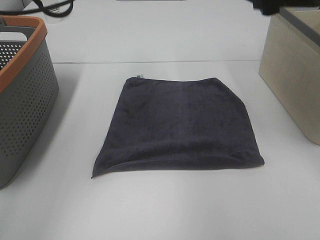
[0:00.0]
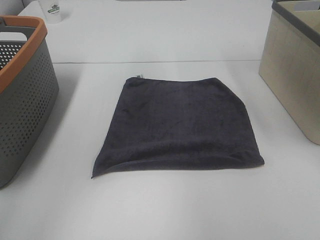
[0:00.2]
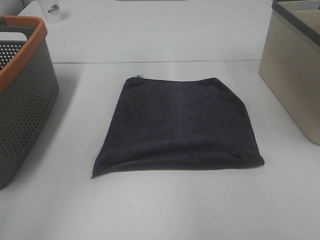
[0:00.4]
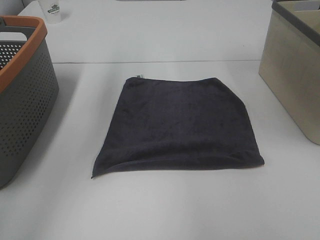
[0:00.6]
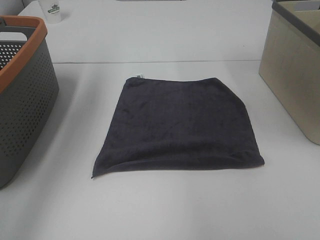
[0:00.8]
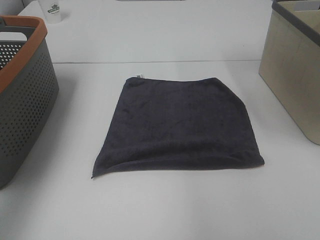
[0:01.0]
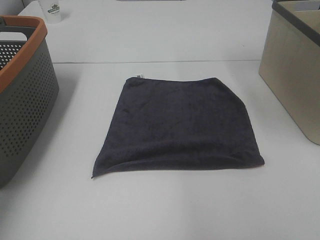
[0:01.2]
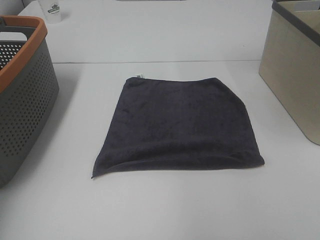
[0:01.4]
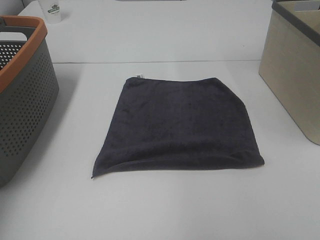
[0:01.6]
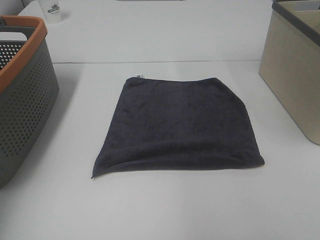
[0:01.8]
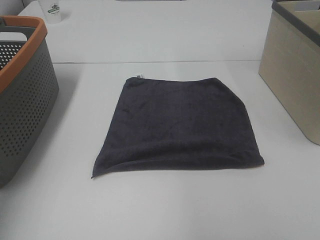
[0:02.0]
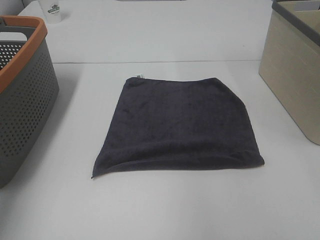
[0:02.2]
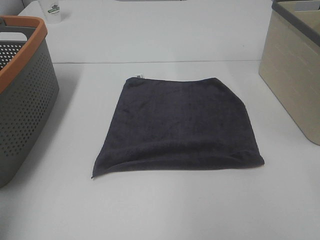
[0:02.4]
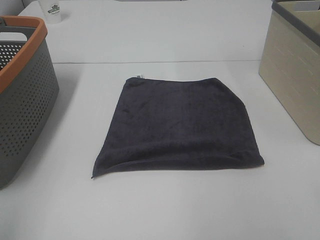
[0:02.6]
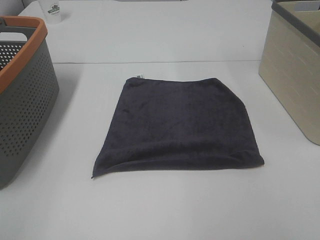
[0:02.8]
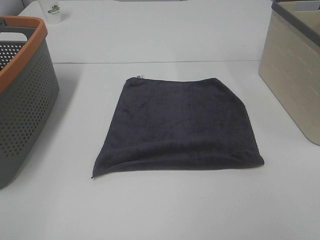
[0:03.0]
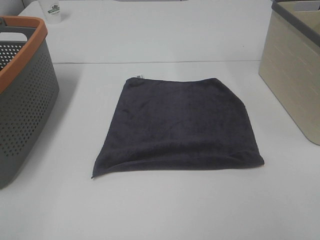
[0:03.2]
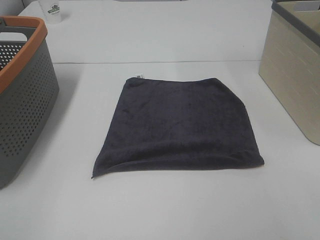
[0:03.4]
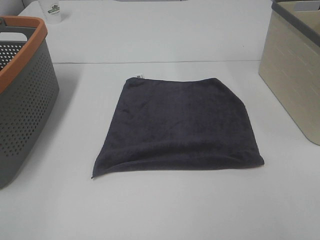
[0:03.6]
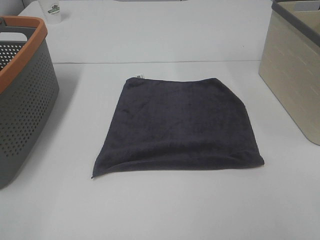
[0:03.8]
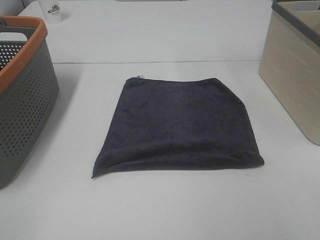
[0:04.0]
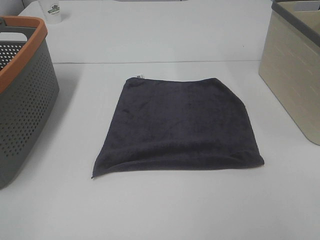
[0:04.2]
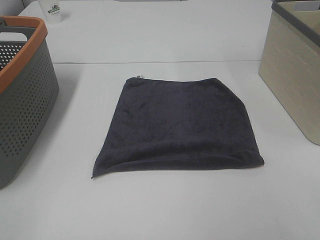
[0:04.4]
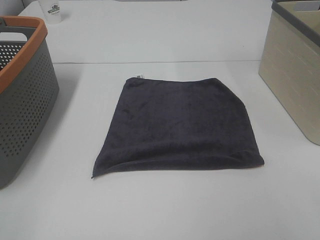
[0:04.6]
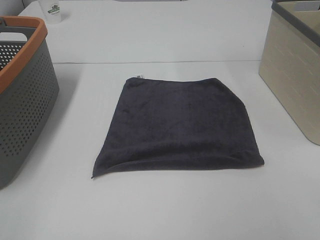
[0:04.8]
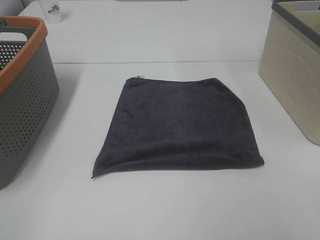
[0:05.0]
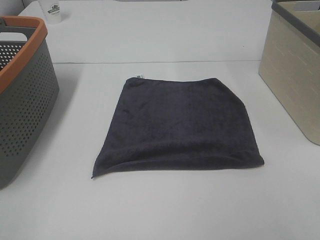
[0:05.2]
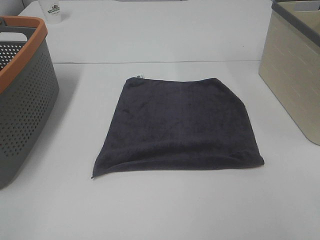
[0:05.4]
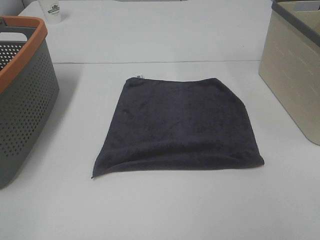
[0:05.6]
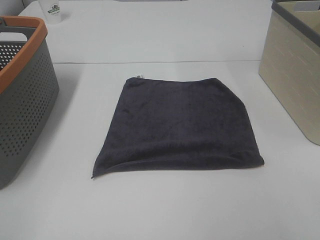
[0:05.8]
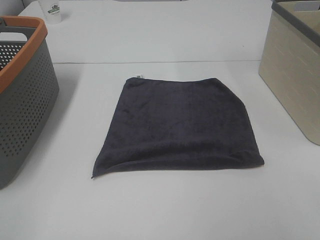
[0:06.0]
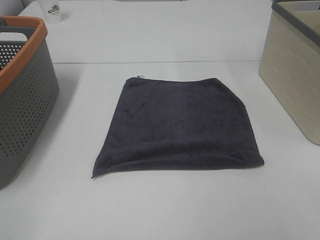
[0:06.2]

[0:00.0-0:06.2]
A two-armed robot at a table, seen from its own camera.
Task of the whole recording: Remove the towel and place it.
0:00.0 to 0:01.6: The right gripper goes some 10 cm upward. The left gripper heads to the left, covering roughly 25 cm.
0:01.6 to 0:03.2: The left gripper goes about 35 cm backward.
0:04.6 to 0:06.2: The two grippers keep their place.

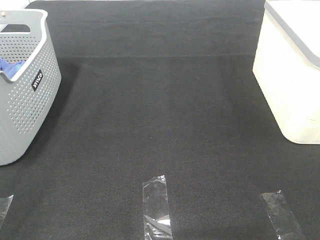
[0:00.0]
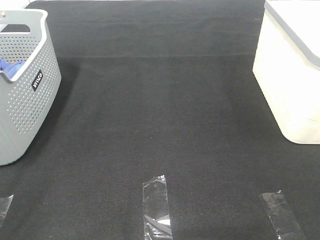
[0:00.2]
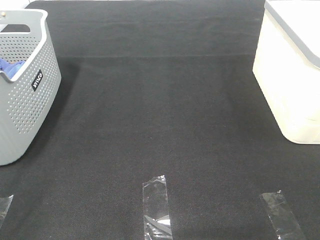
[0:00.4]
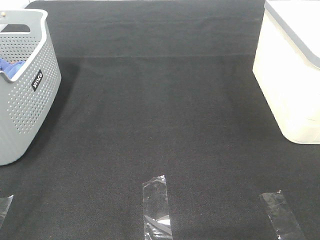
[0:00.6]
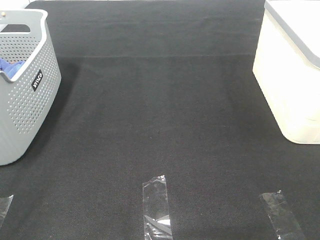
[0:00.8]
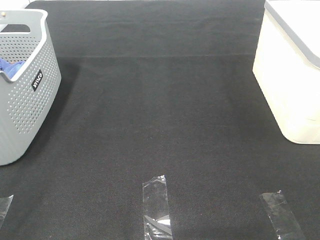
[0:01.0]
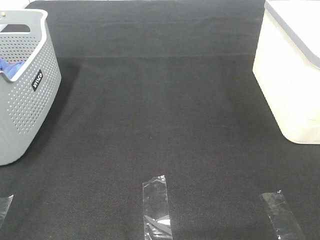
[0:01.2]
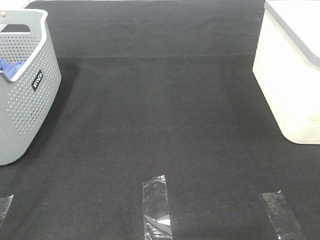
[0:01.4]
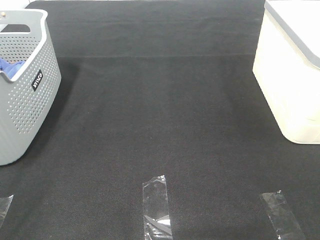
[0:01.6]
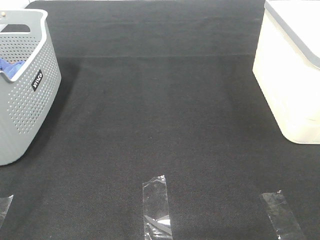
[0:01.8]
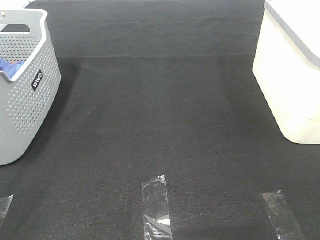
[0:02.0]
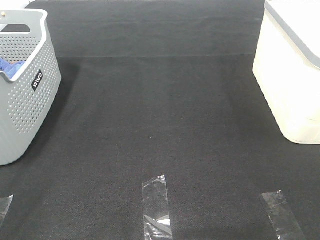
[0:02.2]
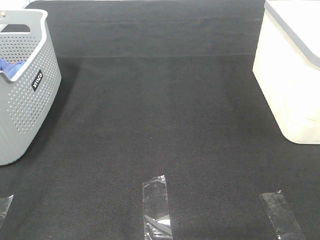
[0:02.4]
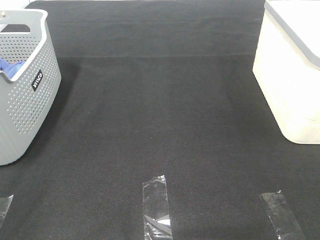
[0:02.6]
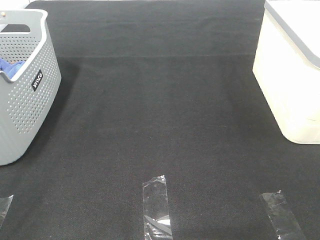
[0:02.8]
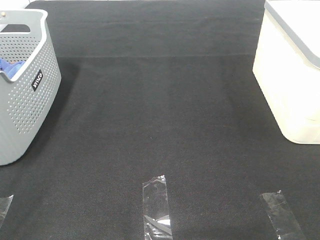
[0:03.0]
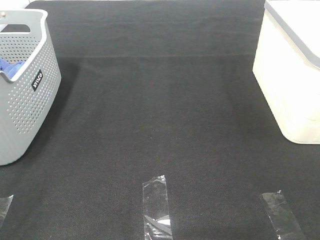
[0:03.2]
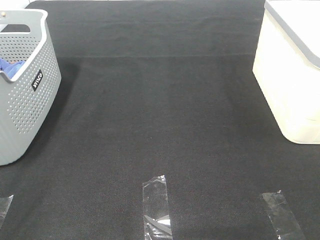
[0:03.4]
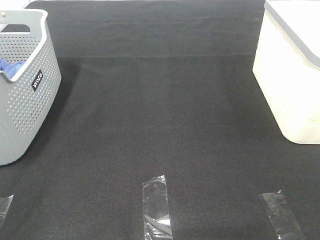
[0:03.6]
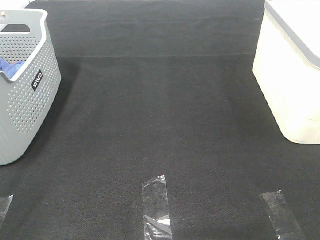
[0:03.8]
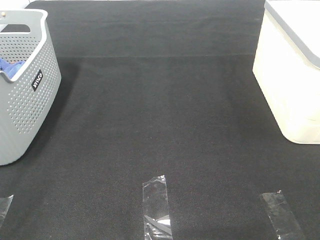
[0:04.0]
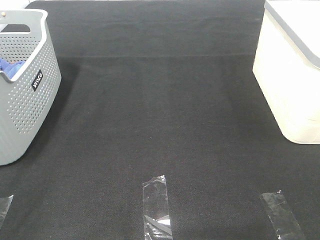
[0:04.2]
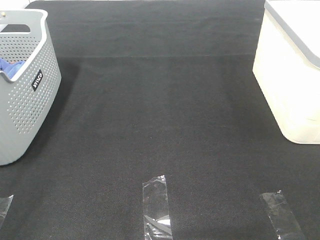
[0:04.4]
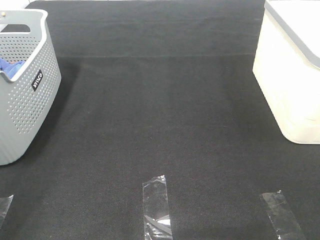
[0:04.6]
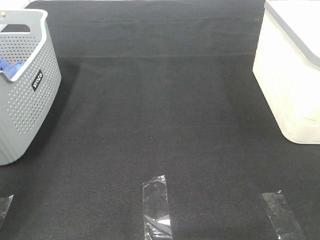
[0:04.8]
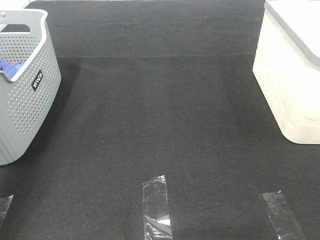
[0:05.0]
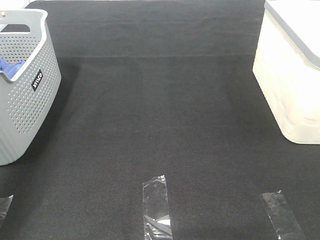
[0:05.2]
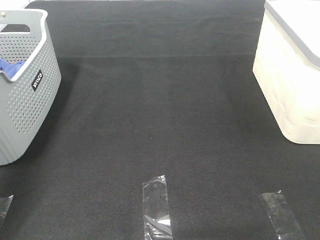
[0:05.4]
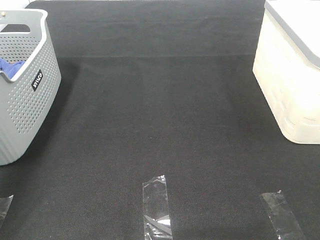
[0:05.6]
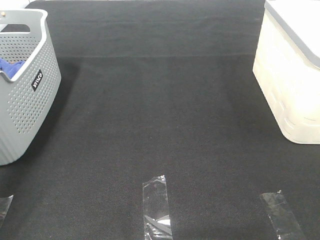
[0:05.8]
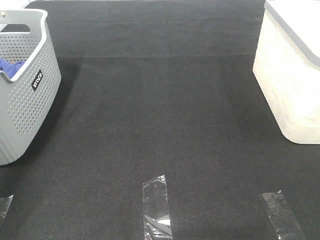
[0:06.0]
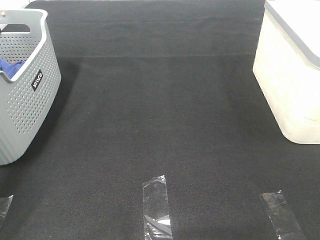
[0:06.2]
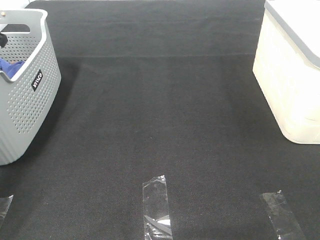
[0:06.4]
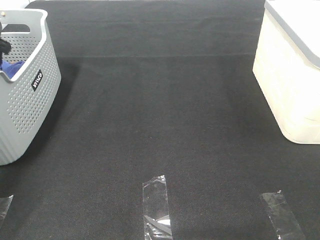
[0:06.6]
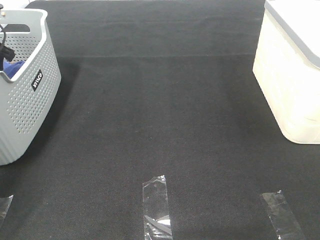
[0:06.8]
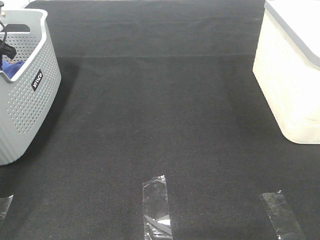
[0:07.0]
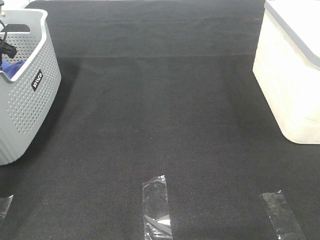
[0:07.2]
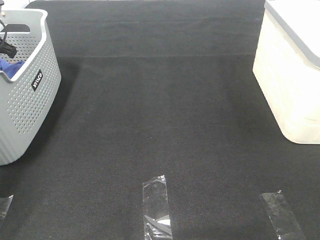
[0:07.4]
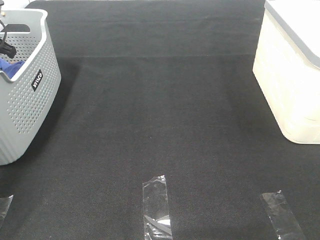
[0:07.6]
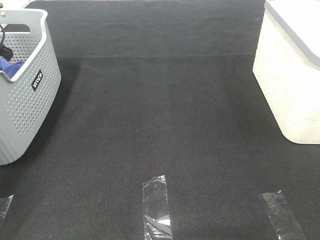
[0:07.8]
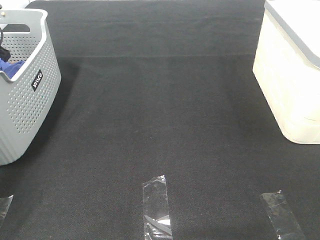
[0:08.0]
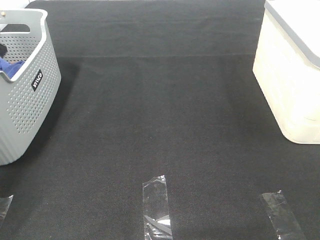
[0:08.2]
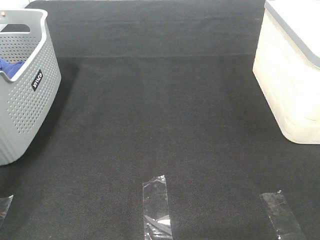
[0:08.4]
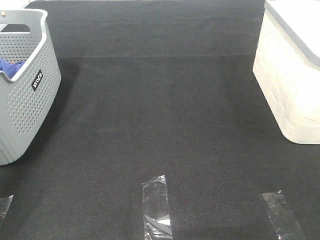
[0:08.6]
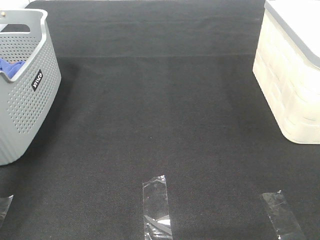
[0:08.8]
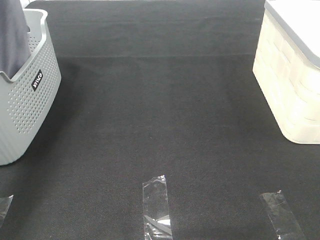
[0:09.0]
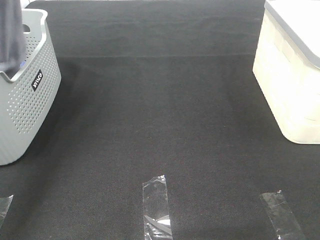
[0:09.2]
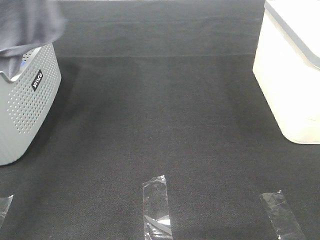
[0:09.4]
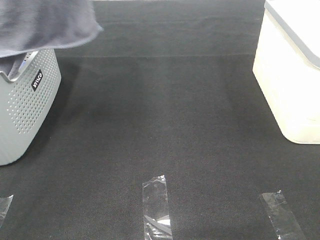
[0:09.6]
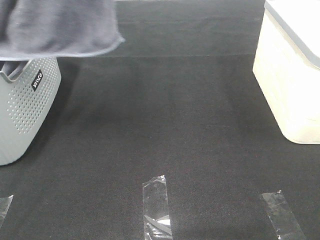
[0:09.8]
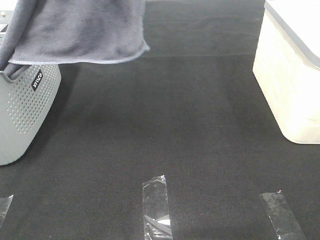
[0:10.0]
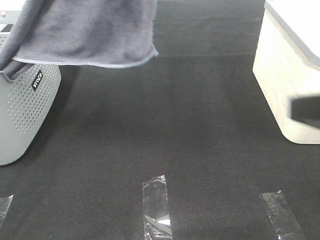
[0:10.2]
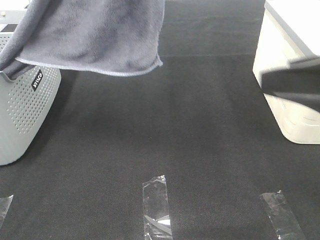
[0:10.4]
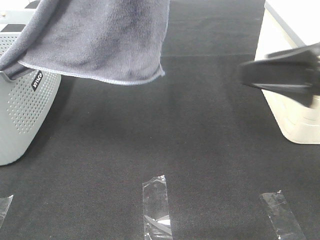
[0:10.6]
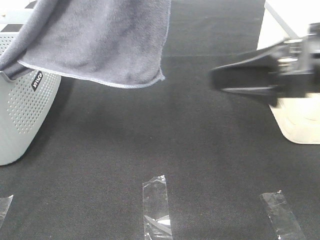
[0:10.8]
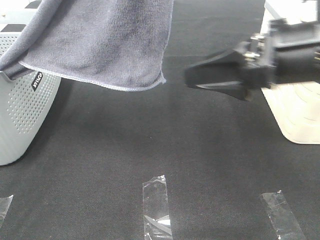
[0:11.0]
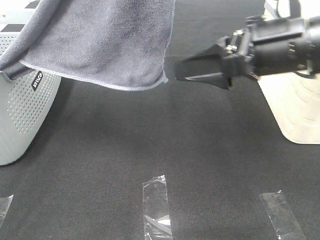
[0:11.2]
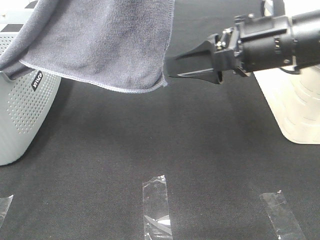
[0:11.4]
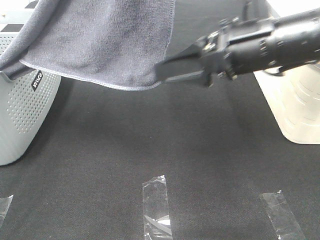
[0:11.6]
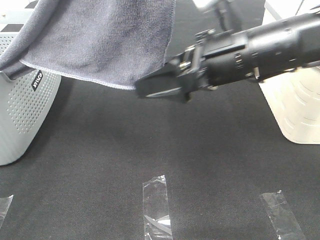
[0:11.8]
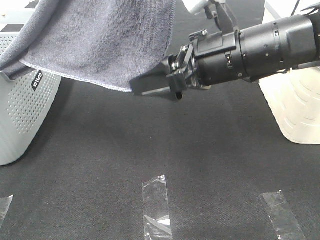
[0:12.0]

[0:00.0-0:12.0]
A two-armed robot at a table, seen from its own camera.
Task of the whole recording: Remove the towel and place it.
0:00.0 to 0:03.0: The two grippers keep their place.
0:04.4 to 0:06.0: The left gripper shifts about 40 cm forward.
0:07.6 to 0:09.0: The left gripper shifts about 25 cm upward and backward.
0:09.0 to 0:10.4: The right gripper heads forward, covering some 15 cm, while the left gripper goes about 25 cm to the right and backward.
0:10.4 to 0:12.0: The right gripper moves to the left, forward and downward, some 20 cm.

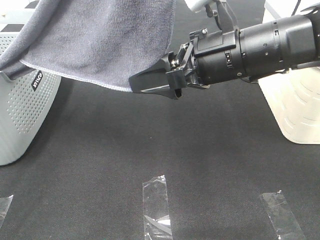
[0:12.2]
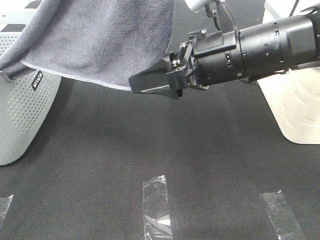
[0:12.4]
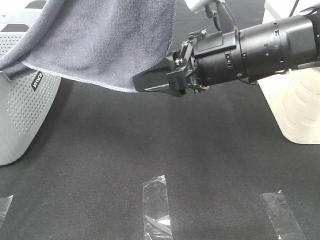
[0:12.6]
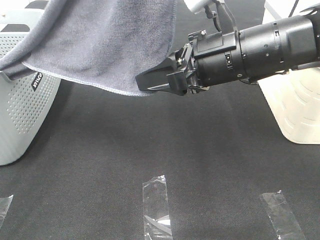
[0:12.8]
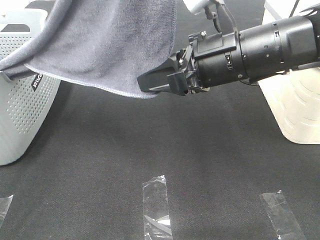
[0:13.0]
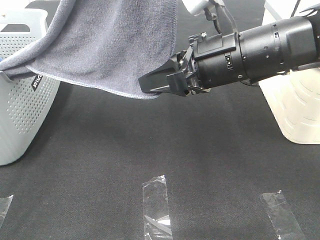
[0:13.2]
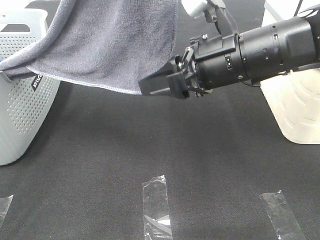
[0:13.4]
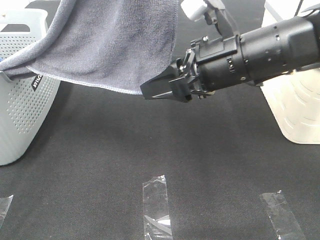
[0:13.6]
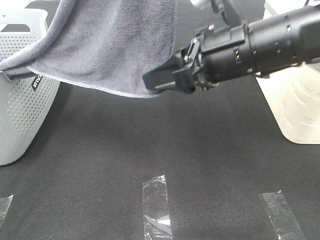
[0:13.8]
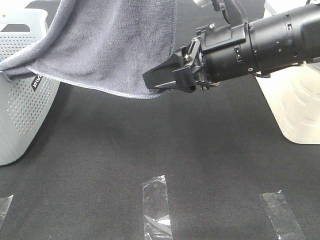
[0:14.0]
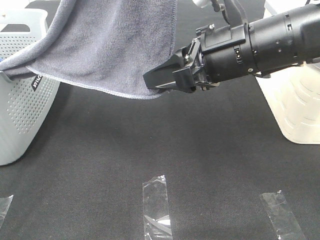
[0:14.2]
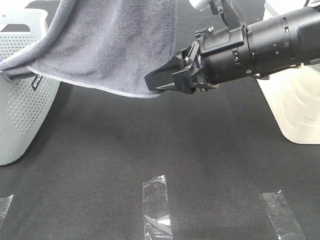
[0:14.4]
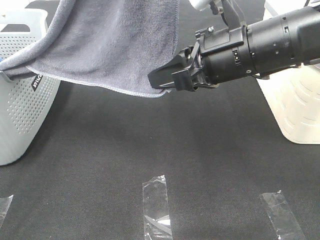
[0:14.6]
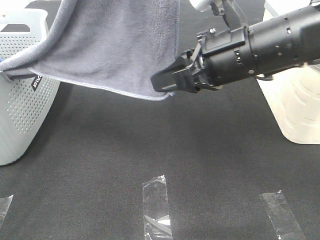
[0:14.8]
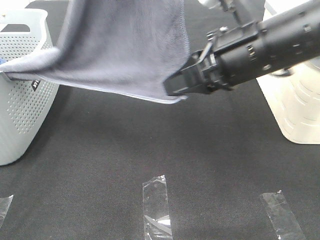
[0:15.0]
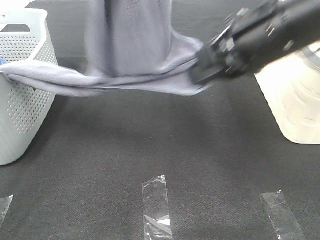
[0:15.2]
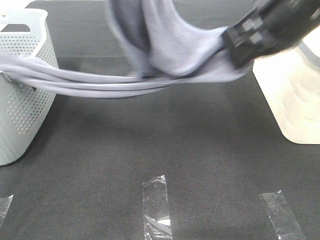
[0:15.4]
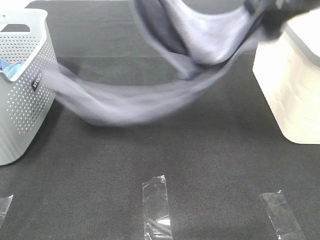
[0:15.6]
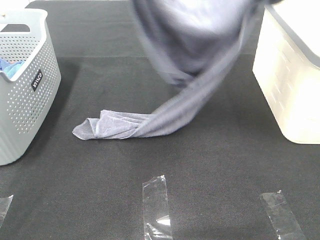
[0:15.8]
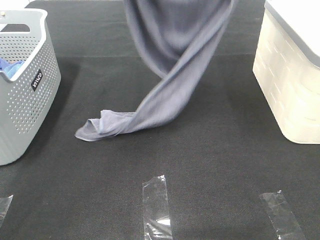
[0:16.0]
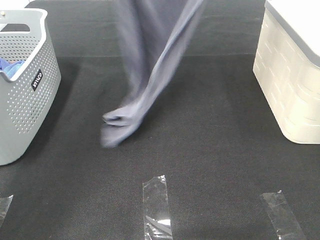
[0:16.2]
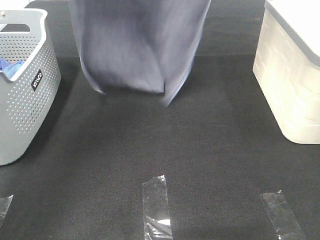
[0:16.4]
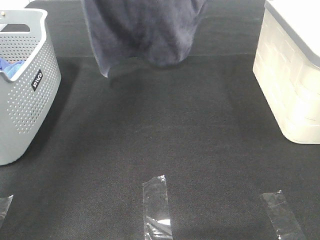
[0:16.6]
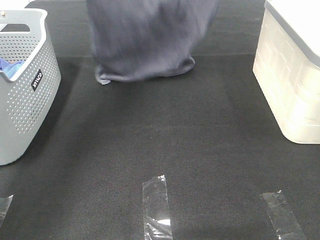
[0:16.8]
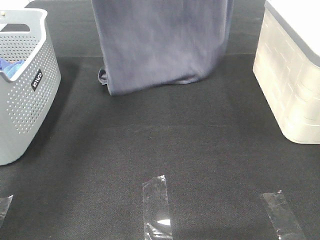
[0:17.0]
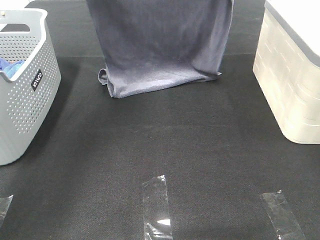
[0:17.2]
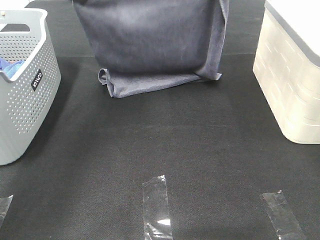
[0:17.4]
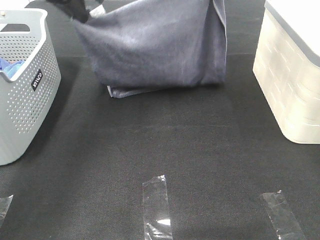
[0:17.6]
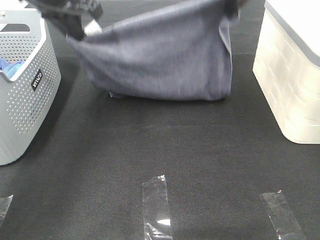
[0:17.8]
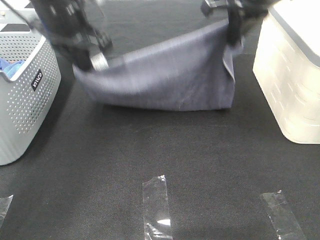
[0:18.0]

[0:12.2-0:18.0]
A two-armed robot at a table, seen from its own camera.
Task of the whole recording: Remove the towel and place it.
Step, 0:13.4 to 0:16.6: Left hand: spread the grey towel flat on the table.
Step, 0:13.4 to 0:16.6: Right hand: spread the grey towel flat on the table.
0:12.2 to 0:13.6: The right gripper closes up.
0:13.6 to 0:15.0: The right gripper closes.
0:15.0 to 0:16.6: The right gripper shifts some 30 cm upward and forward; the left gripper moves forward and to the left, some 20 cm.
0:16.6 to 0:18.0: The grippers both shift downward by some 20 cm.
